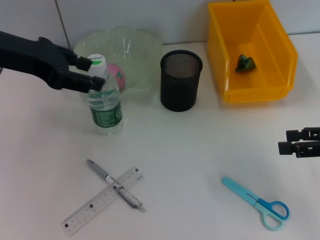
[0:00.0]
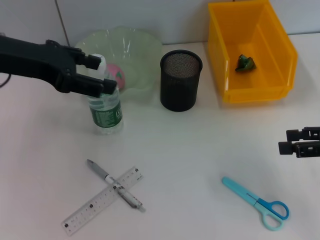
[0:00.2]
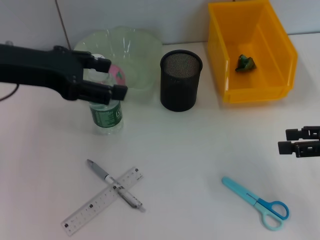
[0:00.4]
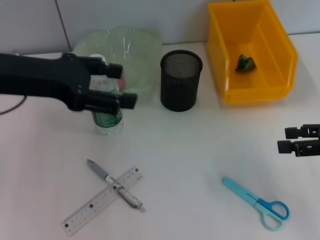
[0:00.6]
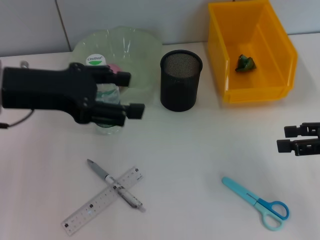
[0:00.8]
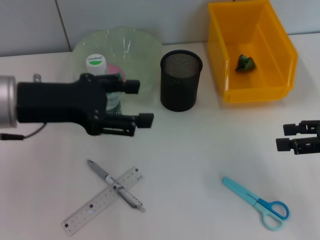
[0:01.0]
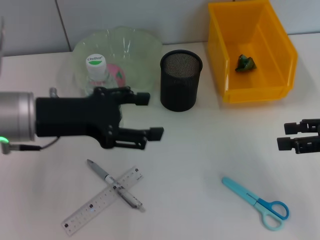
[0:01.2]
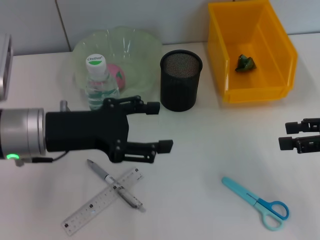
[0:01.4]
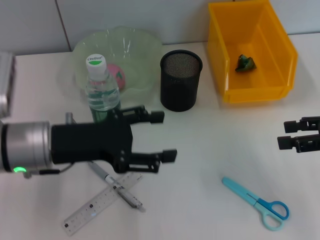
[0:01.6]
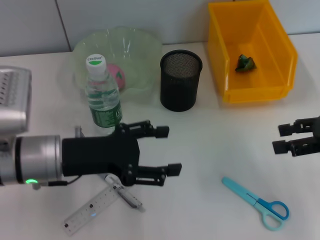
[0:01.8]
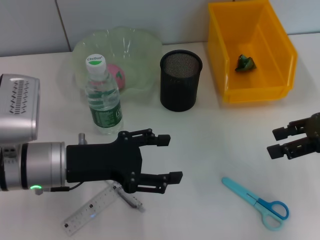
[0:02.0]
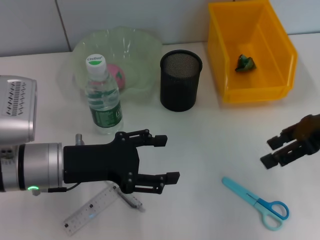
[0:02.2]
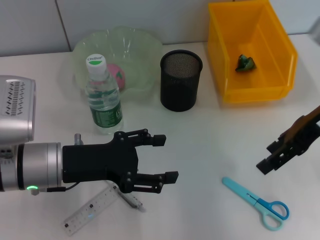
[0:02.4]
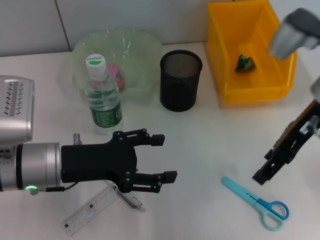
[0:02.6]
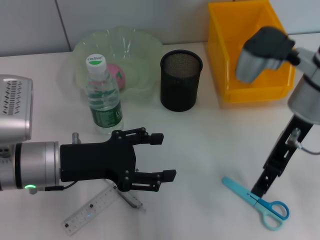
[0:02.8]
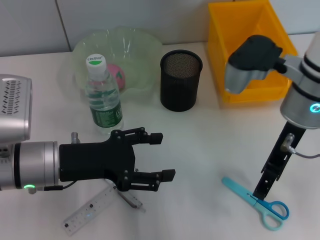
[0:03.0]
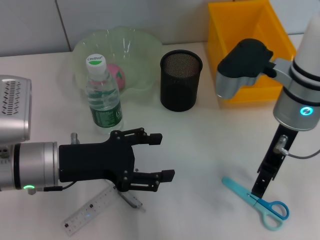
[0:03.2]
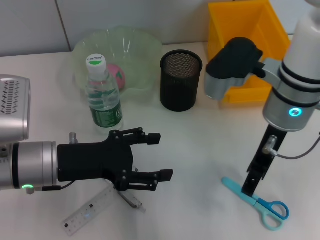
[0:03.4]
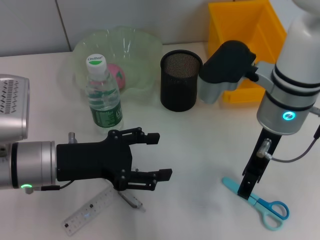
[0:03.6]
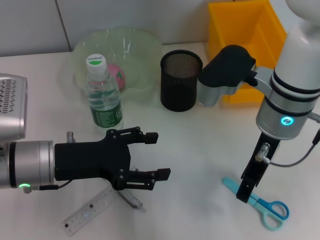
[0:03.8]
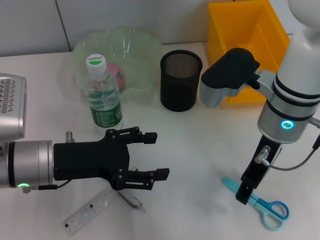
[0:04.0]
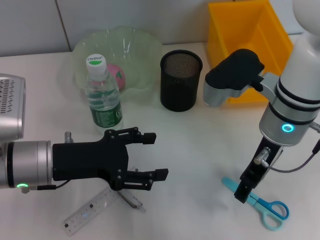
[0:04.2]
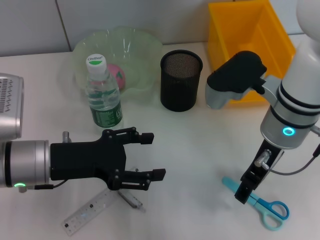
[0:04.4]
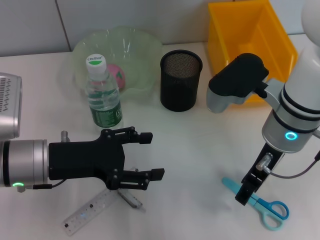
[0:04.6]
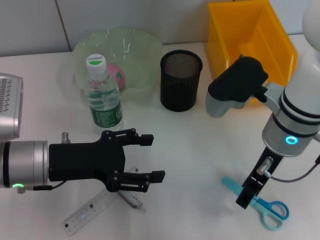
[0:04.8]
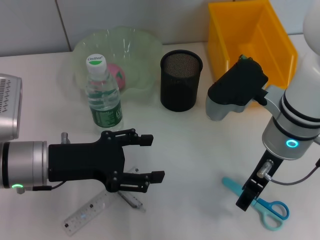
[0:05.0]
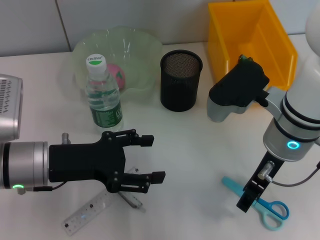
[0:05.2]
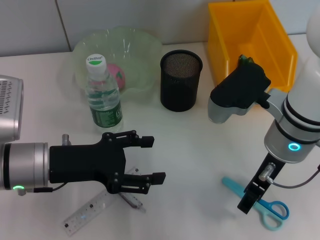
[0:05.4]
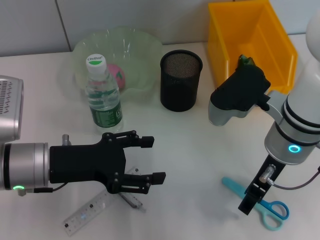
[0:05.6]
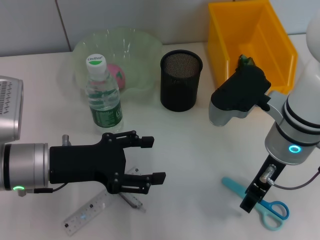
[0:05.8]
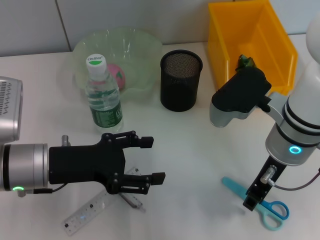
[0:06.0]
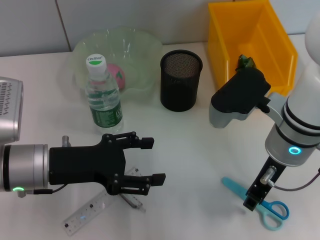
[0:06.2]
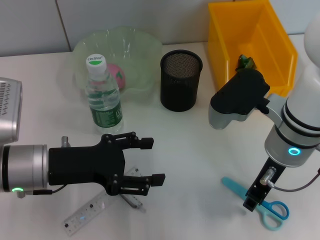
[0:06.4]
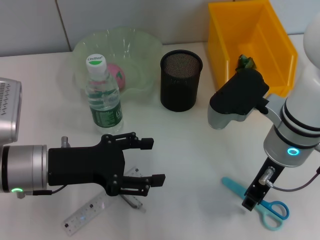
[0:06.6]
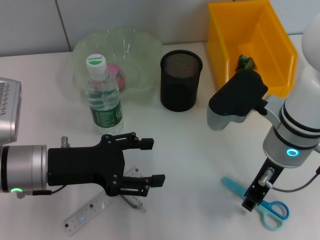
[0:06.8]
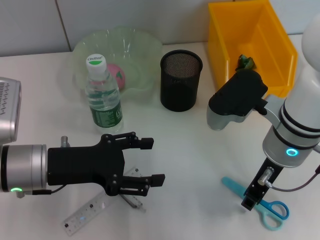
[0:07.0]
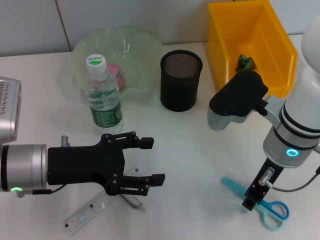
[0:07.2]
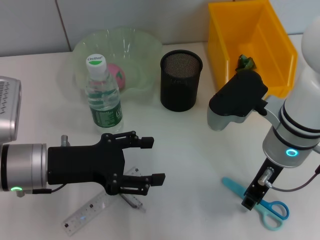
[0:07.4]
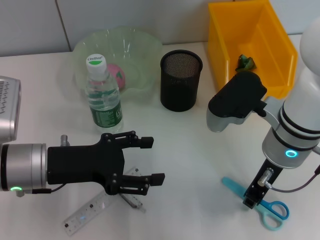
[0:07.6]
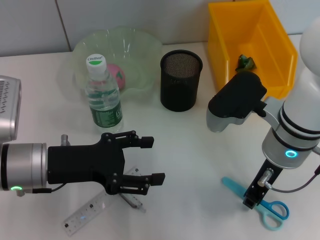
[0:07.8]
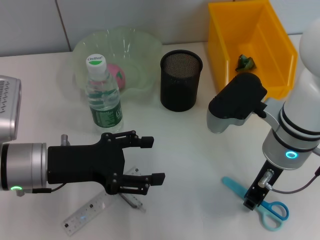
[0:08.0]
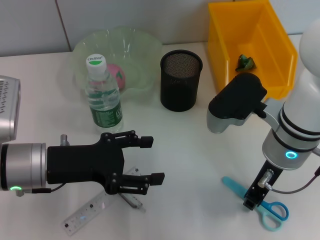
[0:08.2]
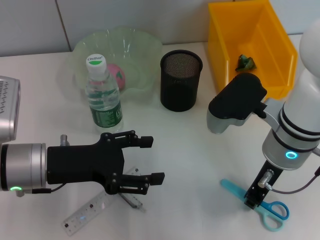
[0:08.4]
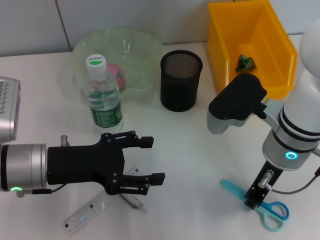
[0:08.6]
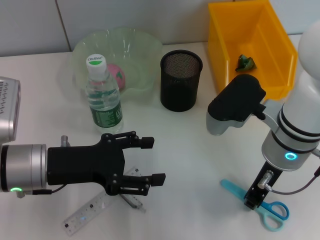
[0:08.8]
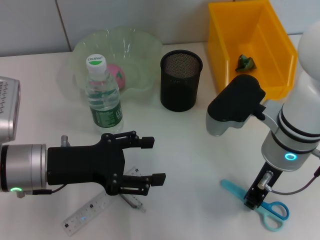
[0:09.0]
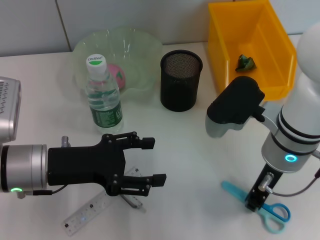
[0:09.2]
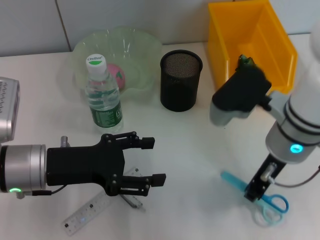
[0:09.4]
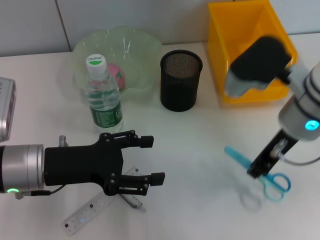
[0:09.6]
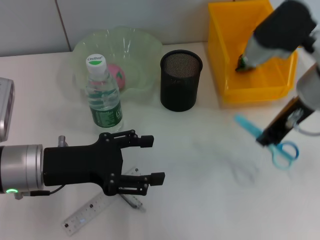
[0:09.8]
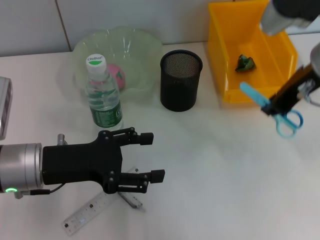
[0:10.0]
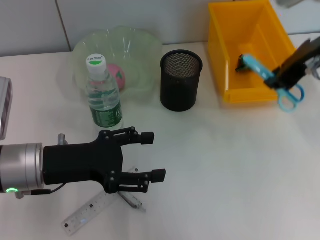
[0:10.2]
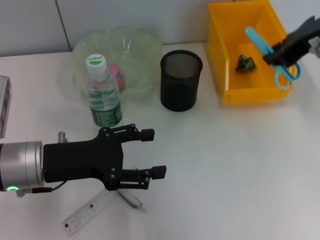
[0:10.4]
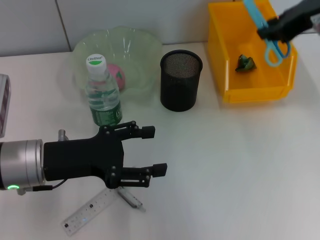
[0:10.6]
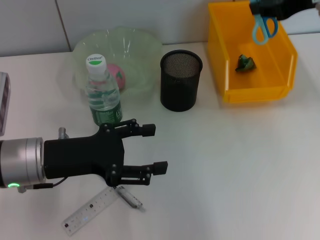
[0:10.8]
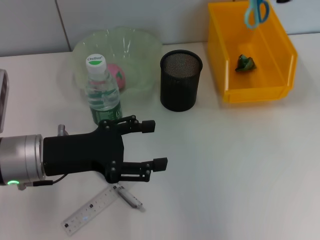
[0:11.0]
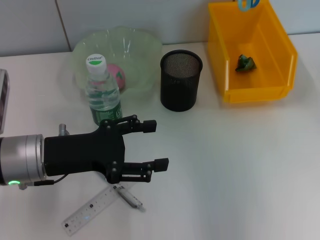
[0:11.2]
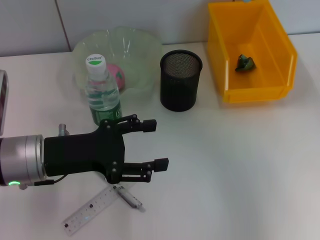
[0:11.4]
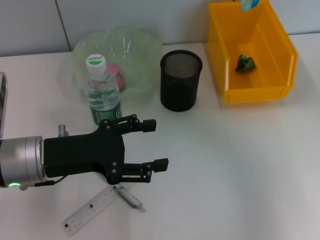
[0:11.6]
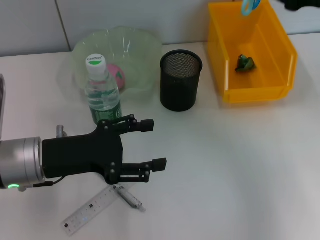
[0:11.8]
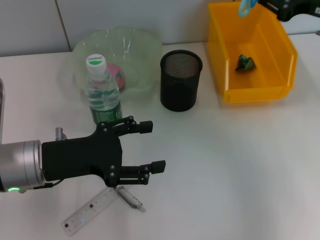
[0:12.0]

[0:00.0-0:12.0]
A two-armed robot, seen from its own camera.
Step, 0:00.0 to 0:06.8: Grab the blue scissors with the right hand.
0:00.0 to 0:01.6: The left gripper is displaced downward and backward by some 15 cm, and opens its fingers.
0:01.6 to 0:03.0: The right gripper is displaced to the left by some 20 cm.
0:03.0 to 0:06.0: The grippers move only a little.
0:06.0 to 0:07.6: The right gripper closes up.
0:07.6 to 0:09.0: Neither gripper changes place.
0:09.0 to 0:10.4: The right gripper is displaced upward, to the right and forward by roughly 15 cm.
0:10.4 to 0:12.0: The right gripper travels to the right and downward by roughly 10 cm.

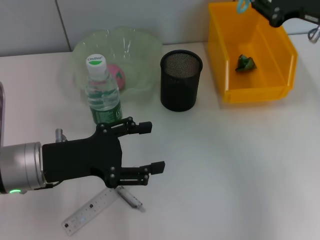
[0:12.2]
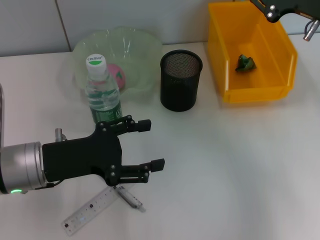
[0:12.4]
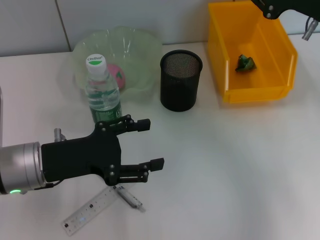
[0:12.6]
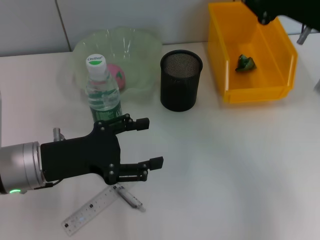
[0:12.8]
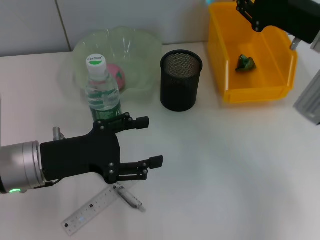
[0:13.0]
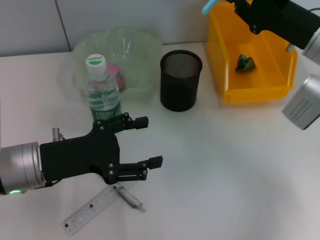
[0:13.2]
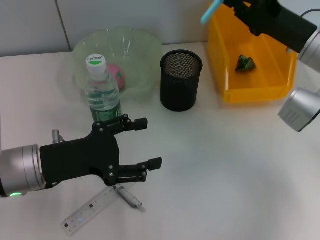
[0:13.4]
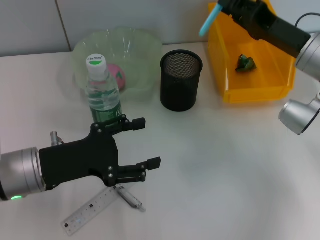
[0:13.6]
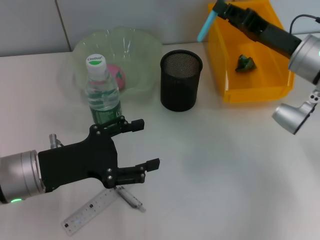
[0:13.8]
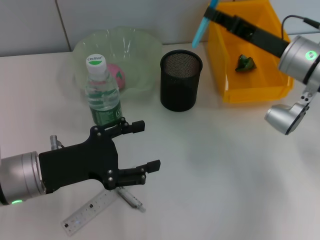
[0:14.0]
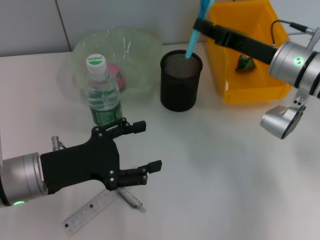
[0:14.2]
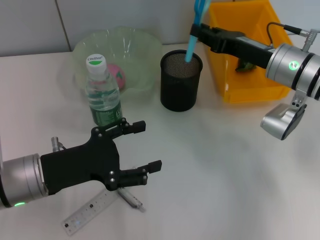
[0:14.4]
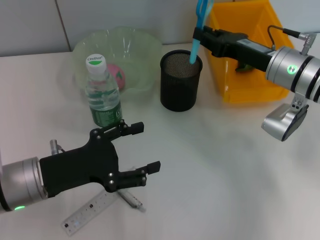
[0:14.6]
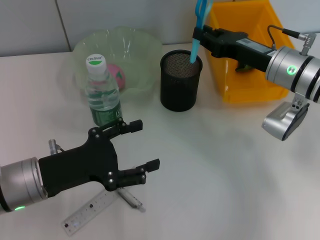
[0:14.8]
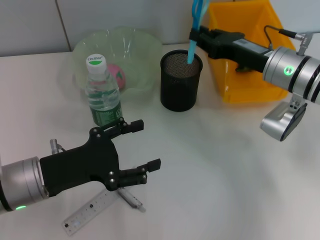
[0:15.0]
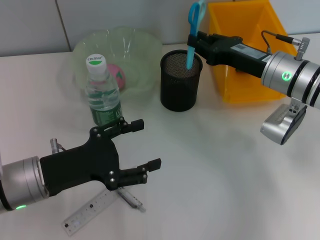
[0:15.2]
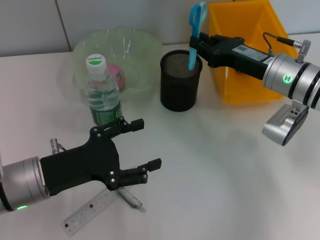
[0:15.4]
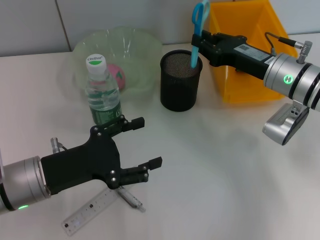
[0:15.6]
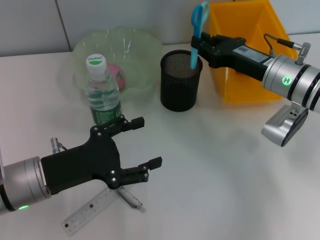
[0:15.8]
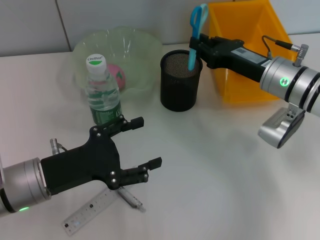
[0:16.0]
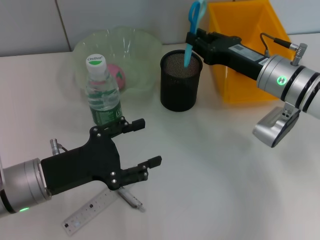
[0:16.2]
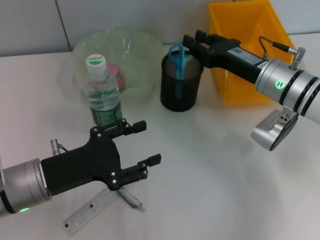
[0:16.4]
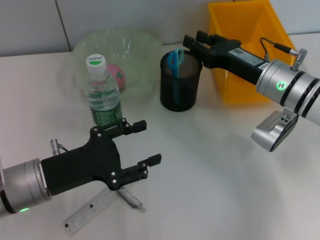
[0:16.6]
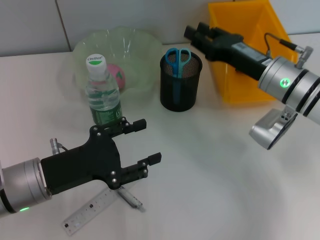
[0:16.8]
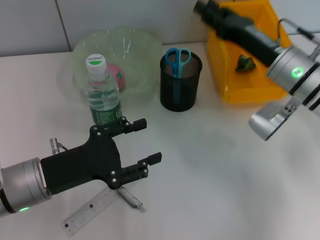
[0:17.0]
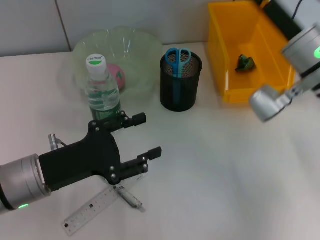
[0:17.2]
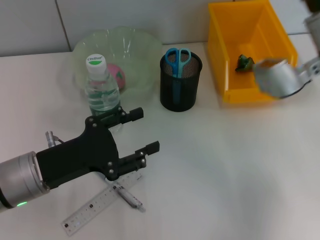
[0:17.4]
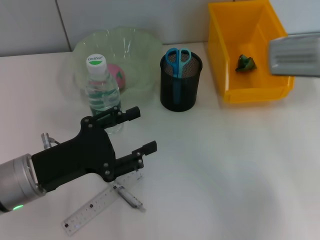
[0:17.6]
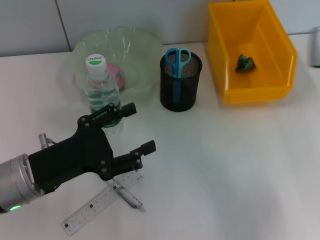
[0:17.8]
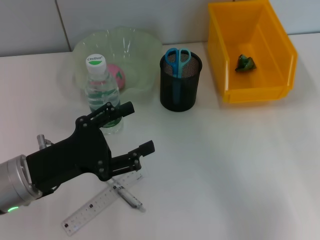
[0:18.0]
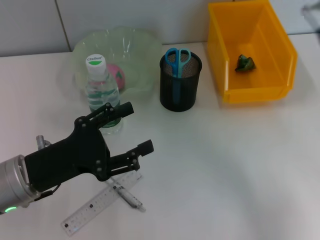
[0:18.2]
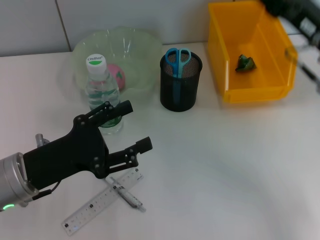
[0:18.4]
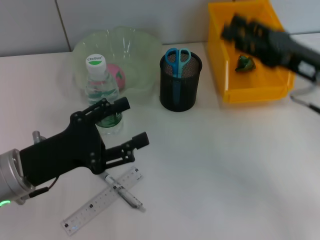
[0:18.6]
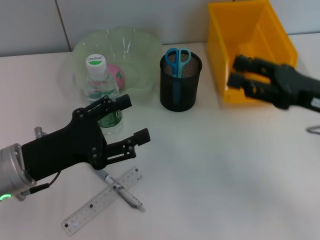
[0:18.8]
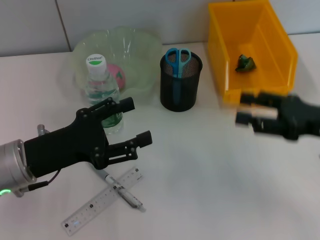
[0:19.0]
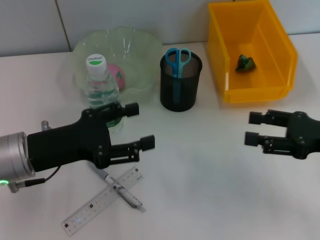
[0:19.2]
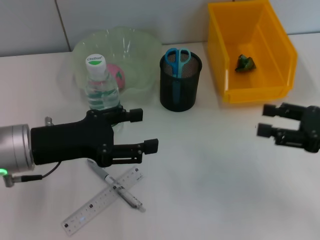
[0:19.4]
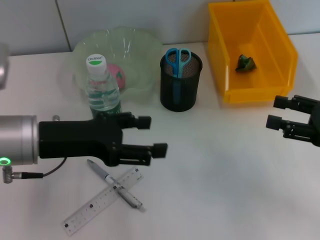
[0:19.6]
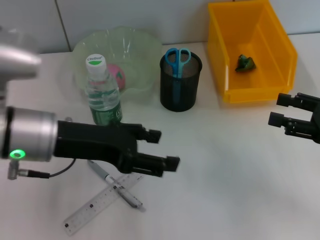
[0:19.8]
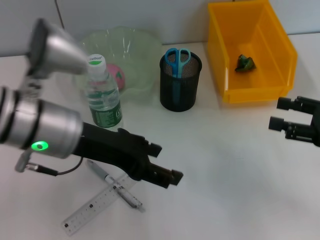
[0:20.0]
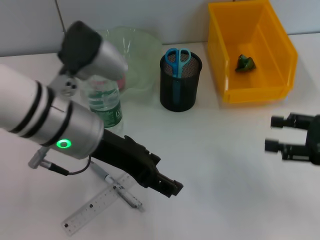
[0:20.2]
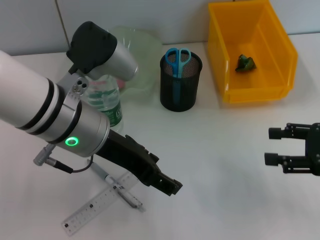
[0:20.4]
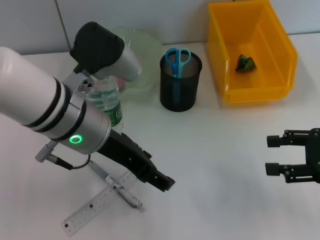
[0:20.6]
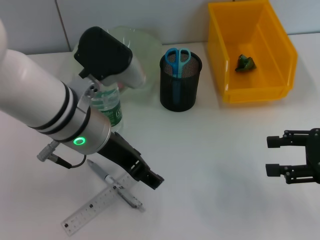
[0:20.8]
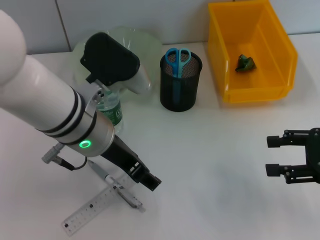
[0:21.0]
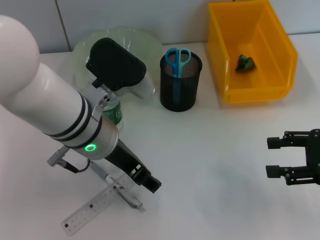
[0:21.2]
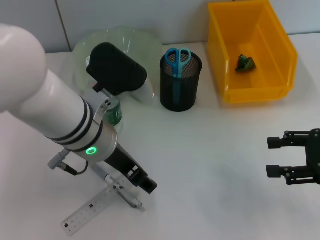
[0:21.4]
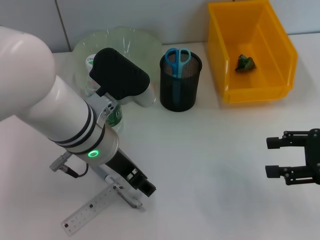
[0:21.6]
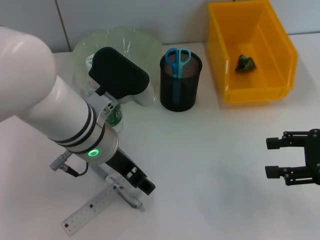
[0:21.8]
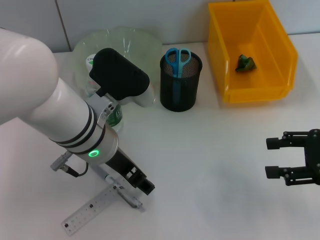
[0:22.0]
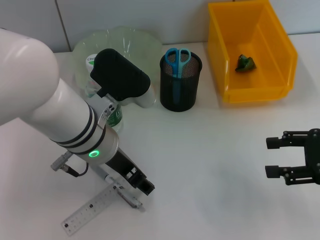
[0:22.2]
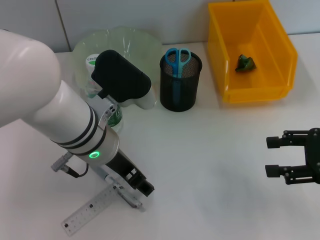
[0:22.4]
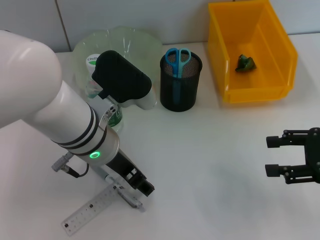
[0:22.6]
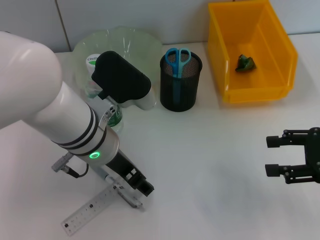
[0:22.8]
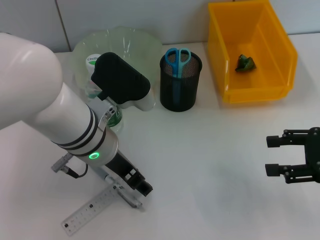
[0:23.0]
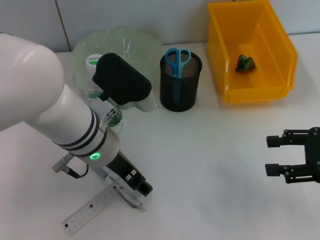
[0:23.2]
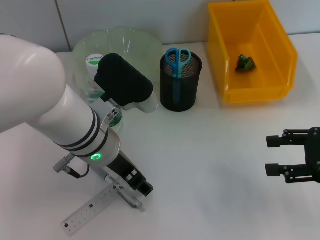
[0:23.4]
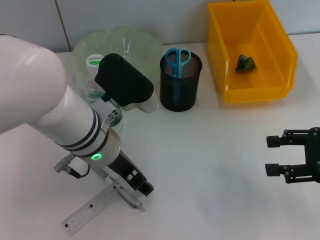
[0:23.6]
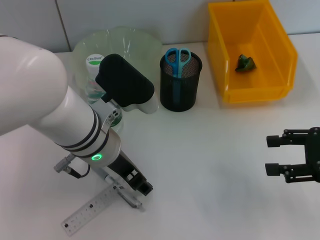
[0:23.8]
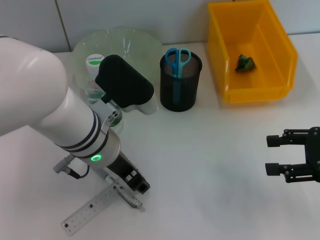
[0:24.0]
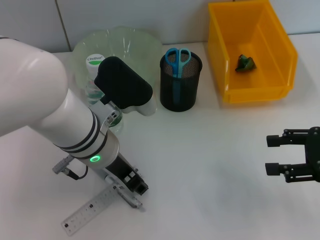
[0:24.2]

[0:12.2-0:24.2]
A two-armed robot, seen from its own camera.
Step, 0:12.2 to 0:16.8: Place the blue scissors into the pen holder with the right hand.
0:12.2 to 0:13.8: The right gripper goes approximately 10 cm downward.
0:15.2 to 0:16.6: The grippers stay close to where they were, moving slightly.
0:16.6 to 0:18.2: The right gripper travels upward by roughly 10 cm, and opens.
0:18.2 to 0:19.8: The left gripper moves upward, roughly 10 cm, while the right gripper shifts approximately 15 cm backward, to the right and downward.
0:19.8 to 0:21.2: The left gripper is displaced to the right by some 10 cm.
0:21.2 to 0:22.6: There are only small adjustments of the grippers.
0:22.6 to 0:24.2: Neither gripper changes place.
